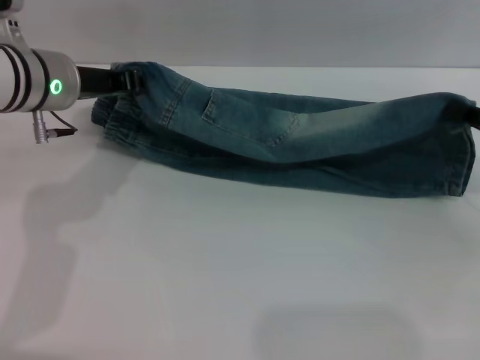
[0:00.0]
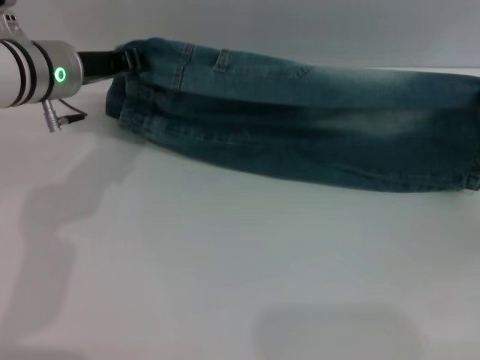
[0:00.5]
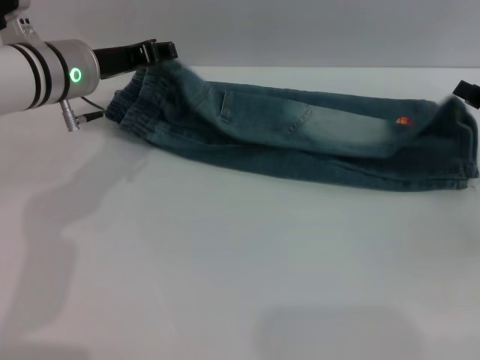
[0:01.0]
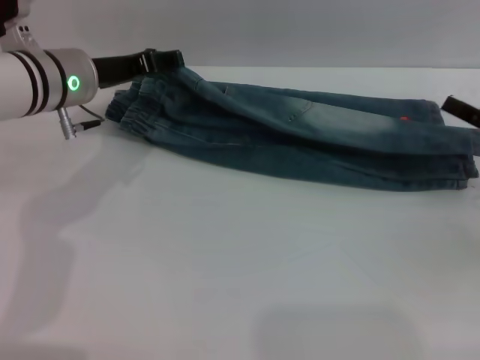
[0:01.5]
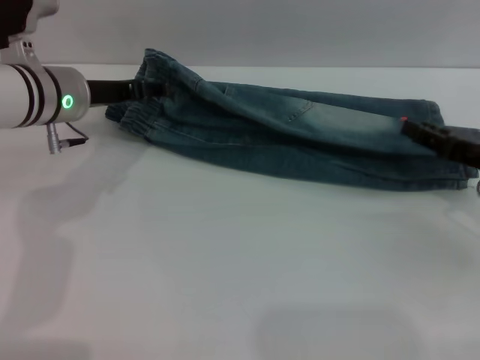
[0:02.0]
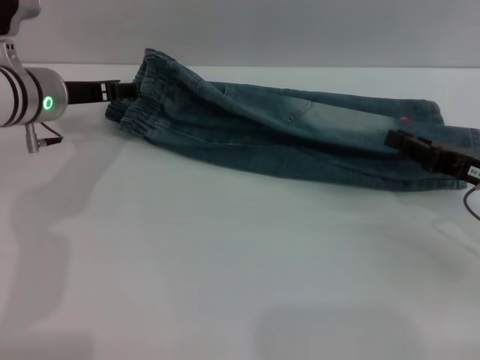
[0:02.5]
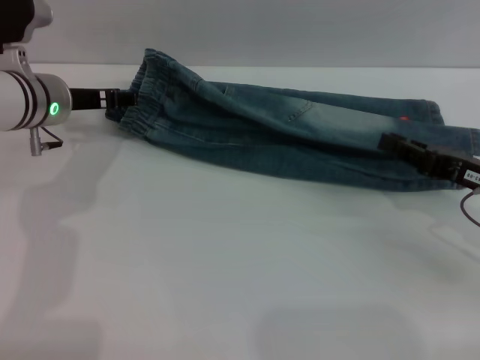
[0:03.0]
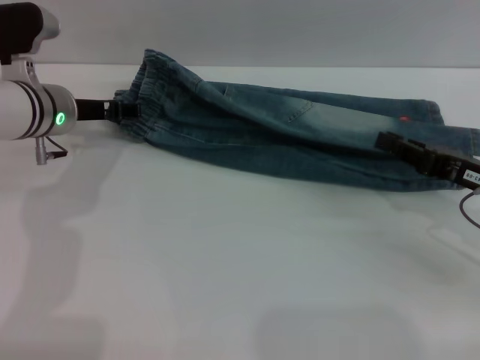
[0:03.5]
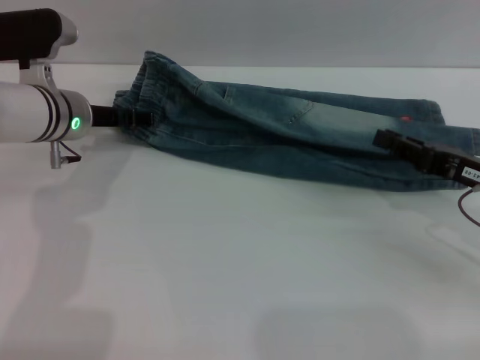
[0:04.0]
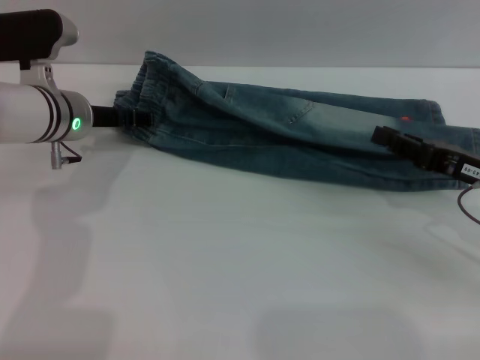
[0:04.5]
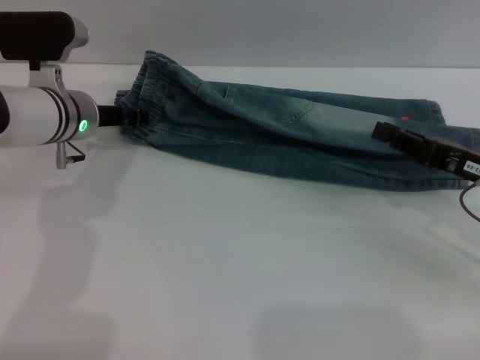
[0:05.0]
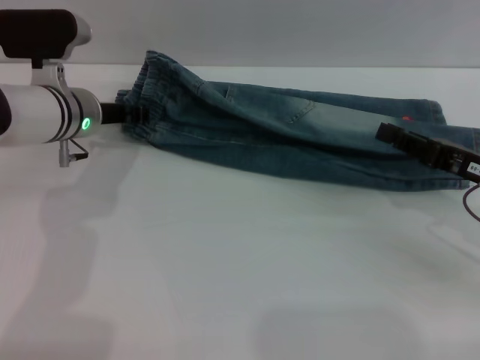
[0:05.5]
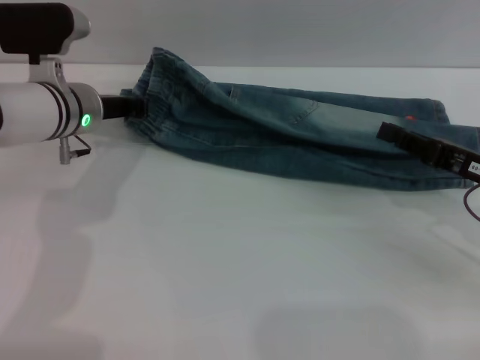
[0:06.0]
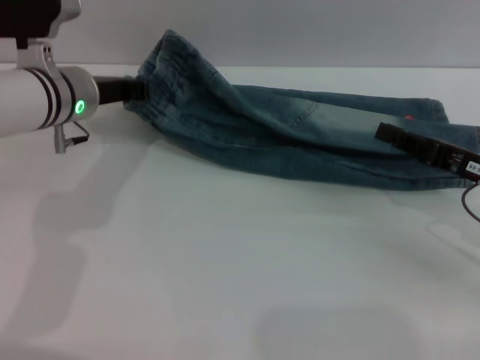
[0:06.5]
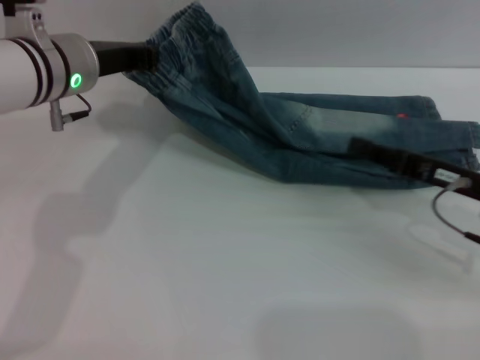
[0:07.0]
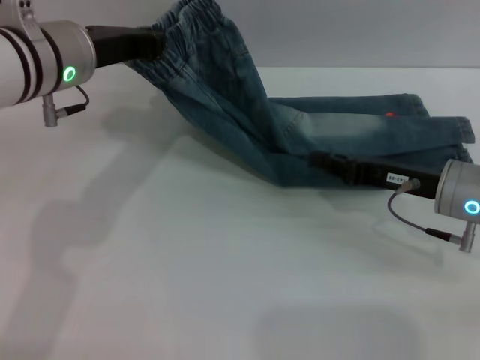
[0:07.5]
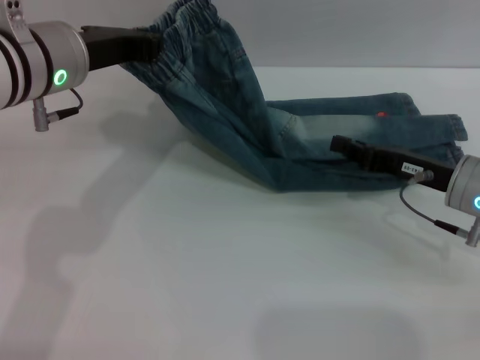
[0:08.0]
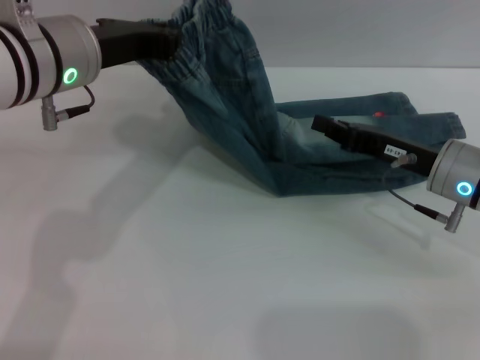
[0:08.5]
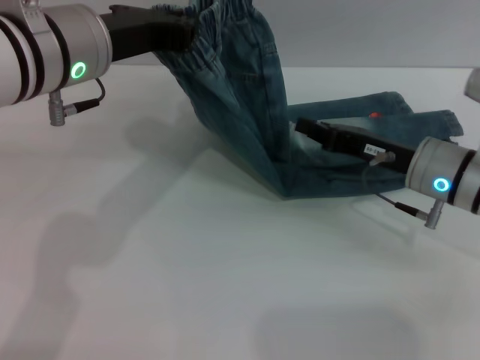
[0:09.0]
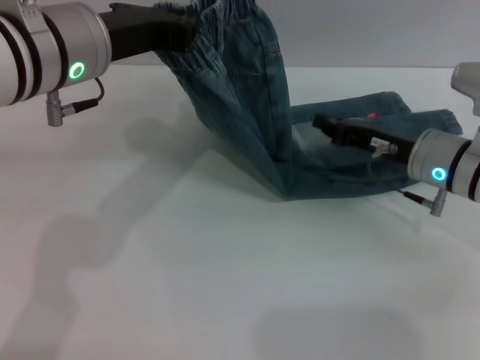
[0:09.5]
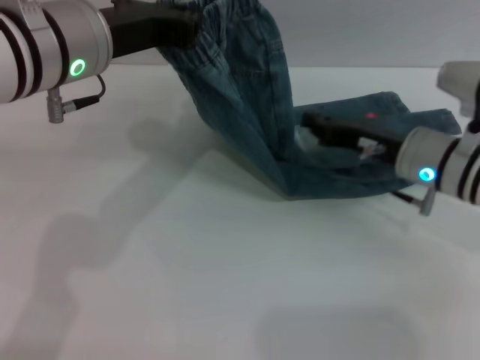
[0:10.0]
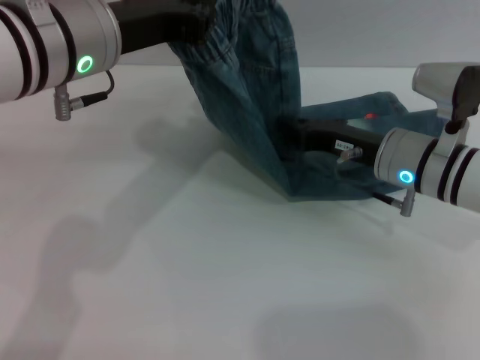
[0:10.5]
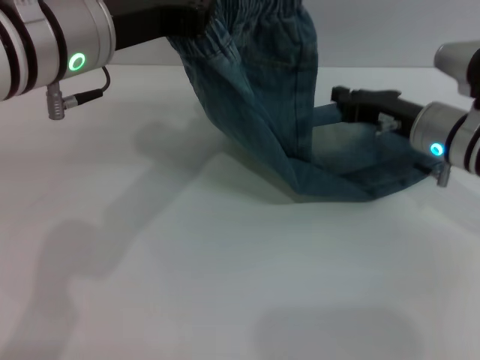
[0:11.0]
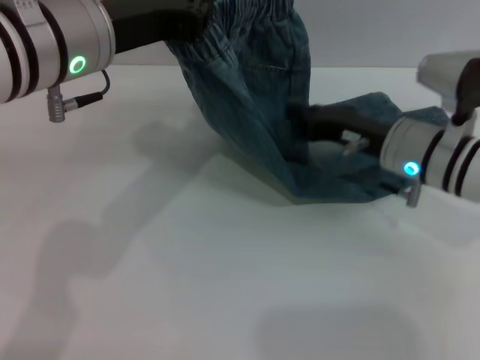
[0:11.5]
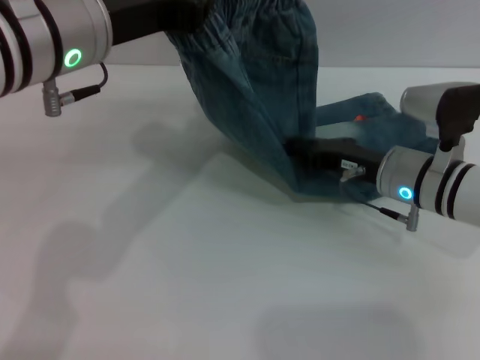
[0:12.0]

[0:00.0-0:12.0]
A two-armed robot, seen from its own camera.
0:00.0 to 0:02.0: The left gripper opens up. Meanwhile the right gripper opens up.
0:02.0 to 0:04.0: The right gripper closes up.
0:04.0 to 0:06.0: The left gripper closes its fingers.
0:06.0 to 0:08.0: The right gripper ends up approximately 5 cm from where it was, while the left gripper goes roughly 10 cm upward and backward.
0:08.0 to 0:10.0: The left gripper ends up approximately 5 cm from where it was, while the right gripper shifts by roughly 5 cm.
0:10.0 to 0:12.0: The grippers make only small movements.

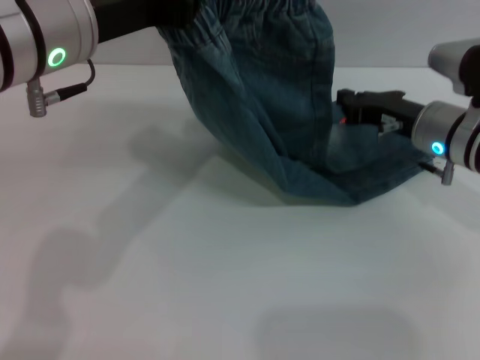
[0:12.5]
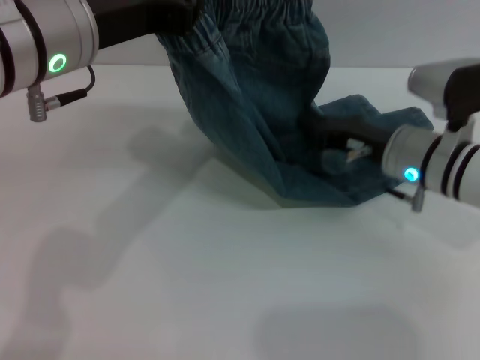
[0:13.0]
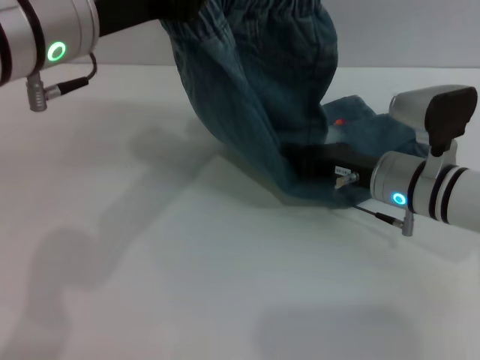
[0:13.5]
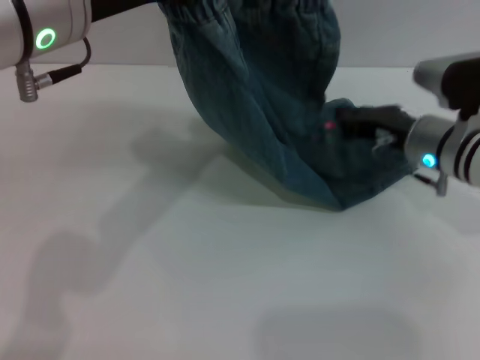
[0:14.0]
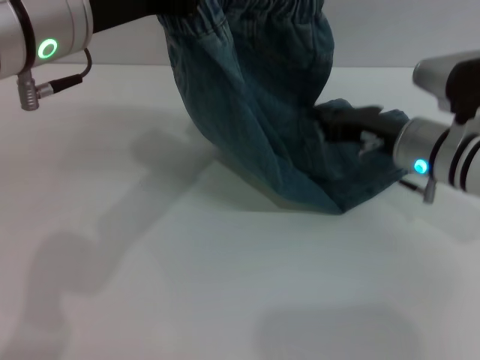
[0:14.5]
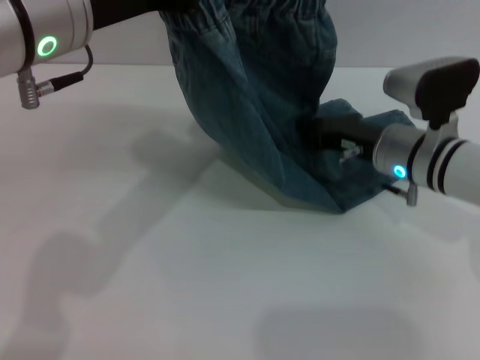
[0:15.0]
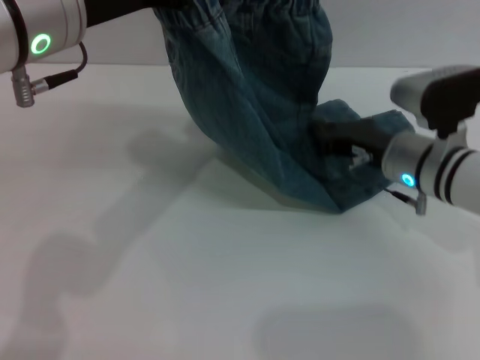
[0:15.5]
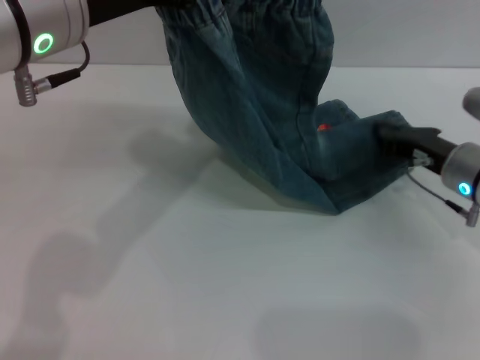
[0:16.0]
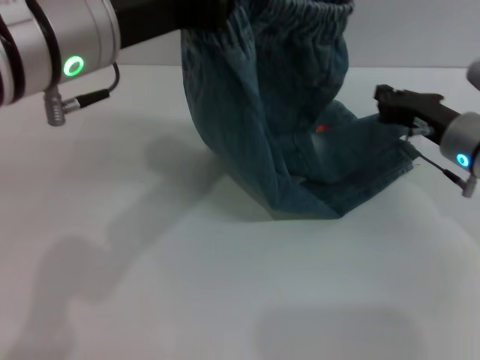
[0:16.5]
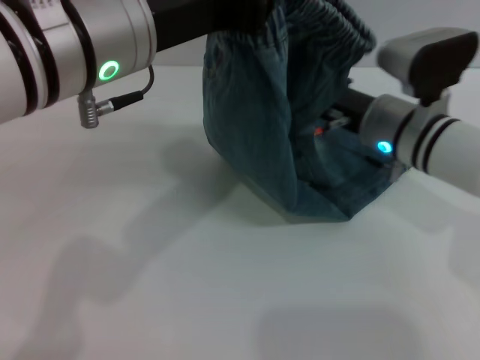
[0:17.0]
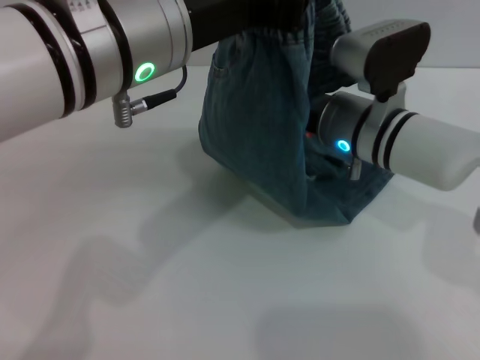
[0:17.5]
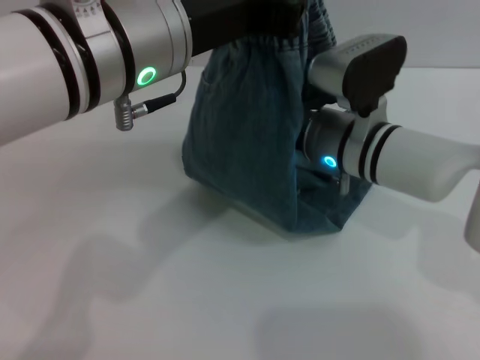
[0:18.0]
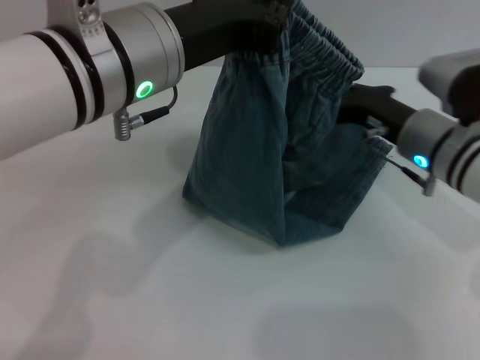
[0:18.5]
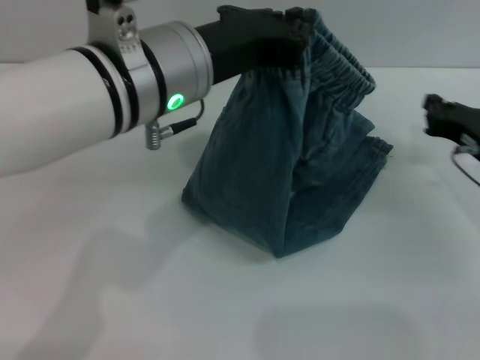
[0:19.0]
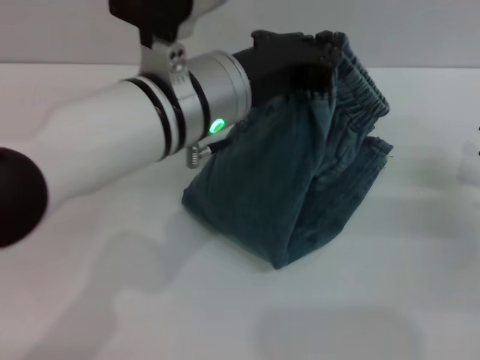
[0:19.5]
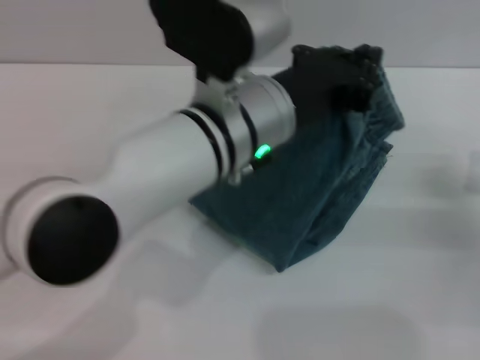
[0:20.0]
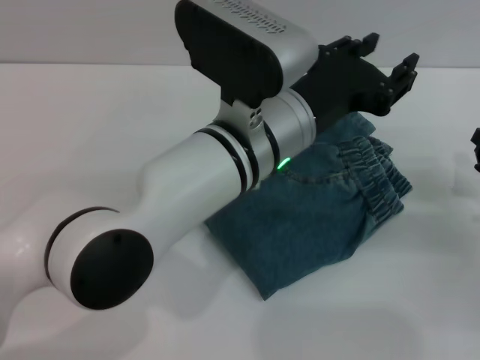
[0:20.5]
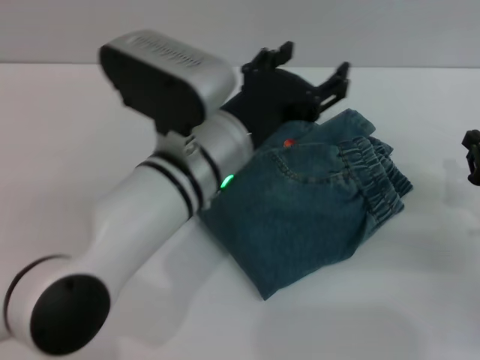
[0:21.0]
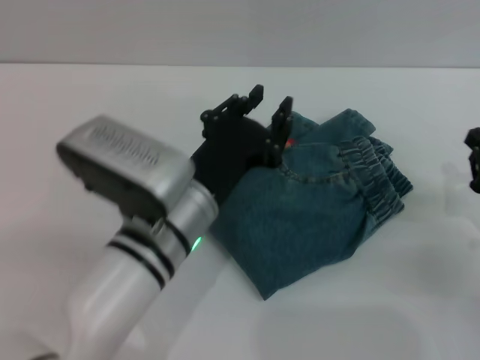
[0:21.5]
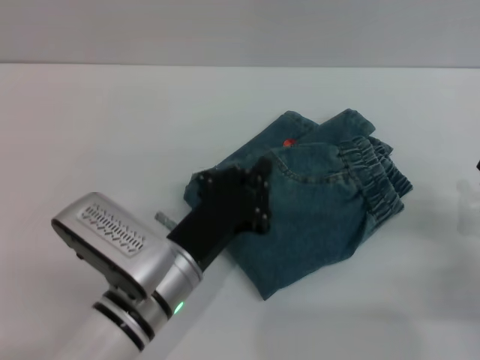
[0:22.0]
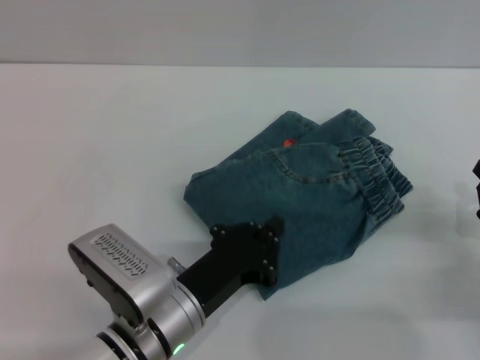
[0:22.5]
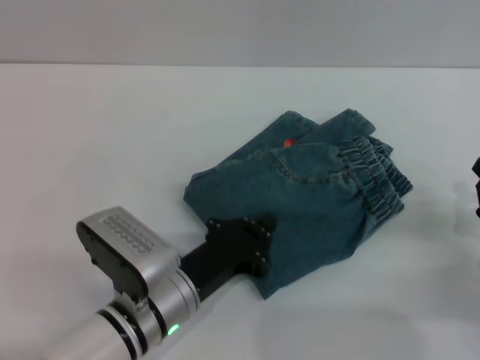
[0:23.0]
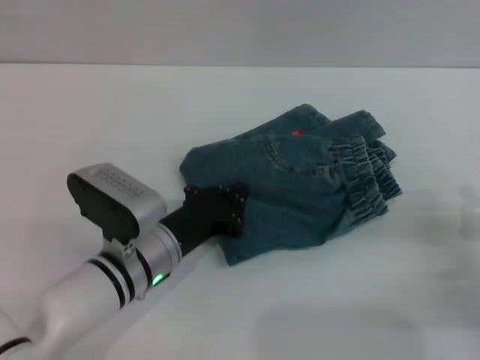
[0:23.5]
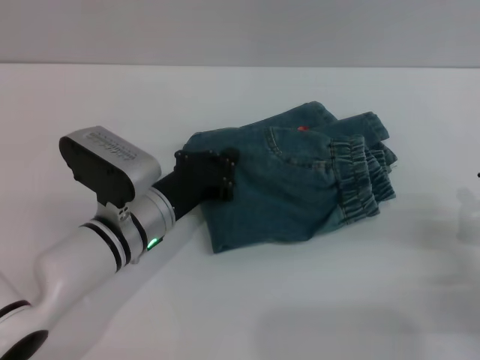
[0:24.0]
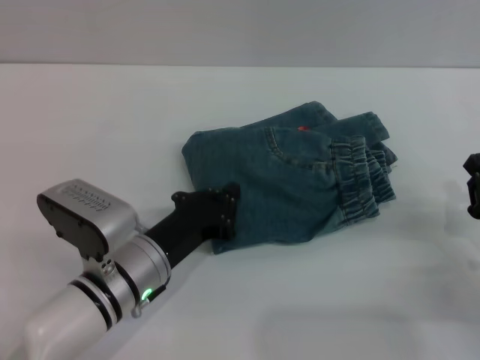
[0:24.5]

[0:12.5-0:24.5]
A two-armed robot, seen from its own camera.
Step, 0:12.5 to 0:20.0: Fold the pants from left to right with the left gripper.
0:16.5 to 0:18.5: The right gripper goes to the left and returns, about 15 cm each way.
0:18.5 to 0:20.5: The left gripper moves to the right and downward, approximately 10 cm, while the right gripper heads to the right and backward, covering approximately 15 cm.
0:20.5 to 0:22.5: The right gripper travels backward by approximately 5 cm. The left gripper goes some 20 cm downward, backward and to the left, and opens and closes again.
0:22.5 to 0:24.5: The left gripper shifts about 5 cm forward.

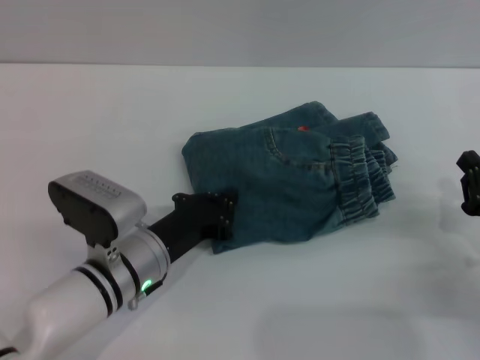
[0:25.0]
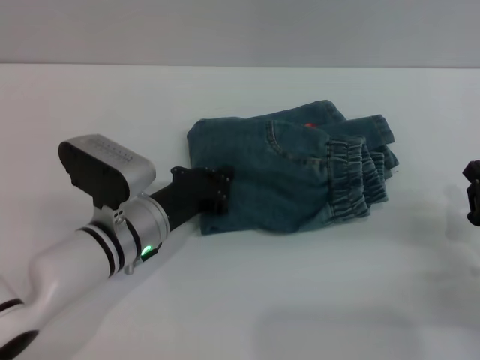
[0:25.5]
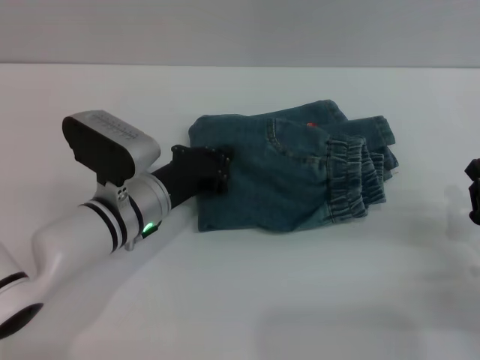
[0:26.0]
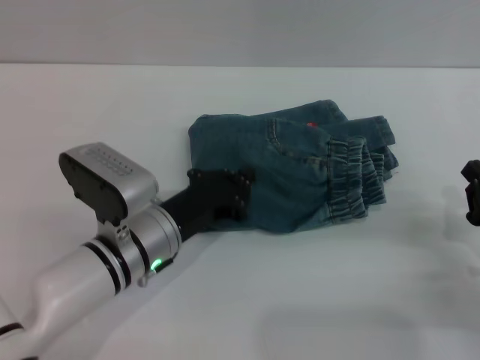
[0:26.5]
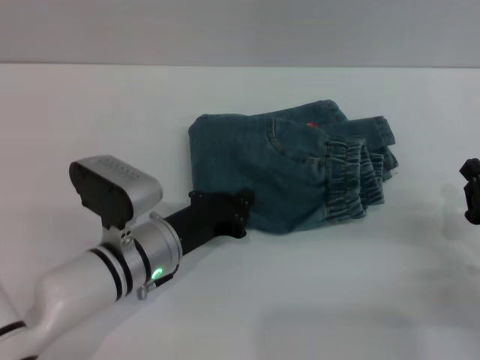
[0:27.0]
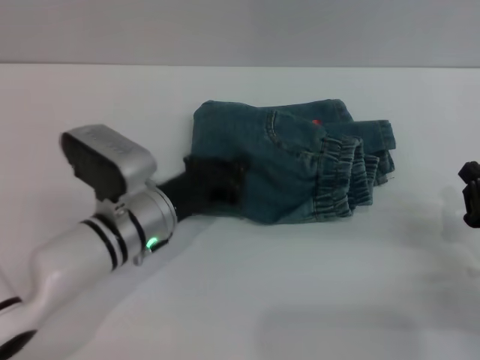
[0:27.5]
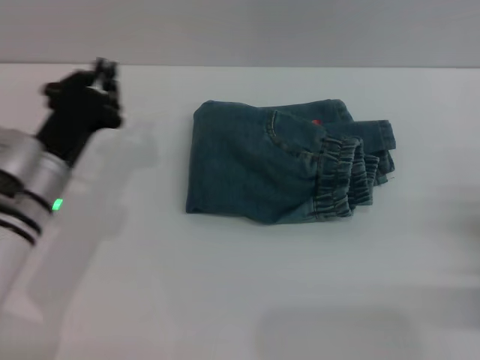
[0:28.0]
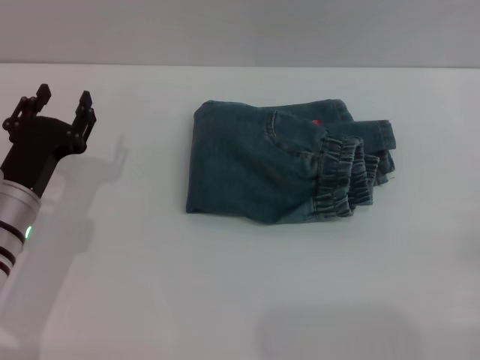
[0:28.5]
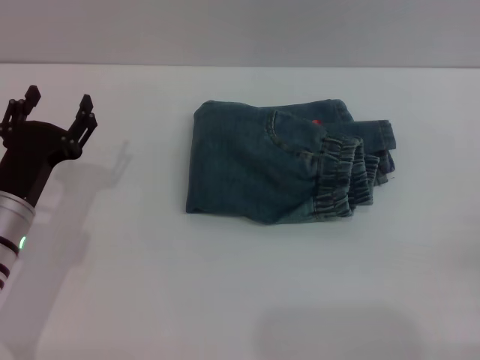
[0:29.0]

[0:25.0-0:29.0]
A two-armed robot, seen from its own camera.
Step, 0:25.0 to 0:27.5: Place the folded trousers onto the center area with the left grippers.
0:27.0 to 0:29.0: The right gripper is displaced backward and to the right by approximately 10 cm, and opens. Meanwhile the left gripper travels to the left by some 10 cm, and opens.
